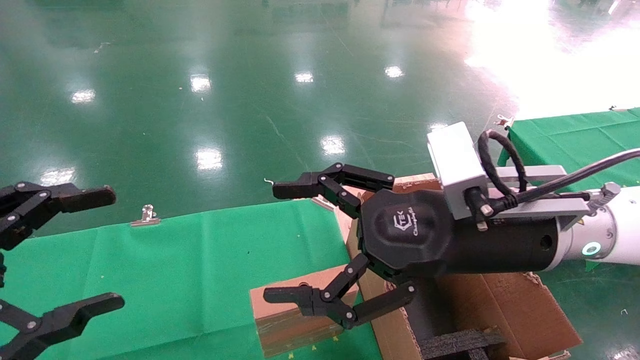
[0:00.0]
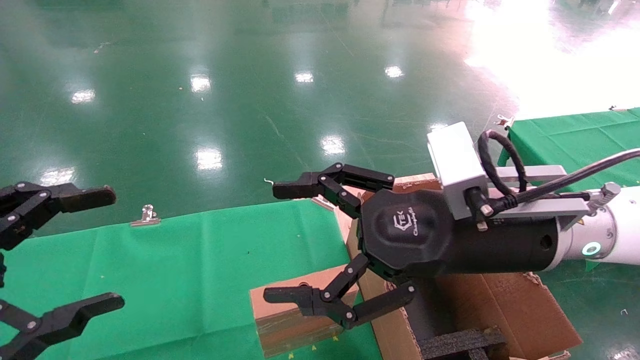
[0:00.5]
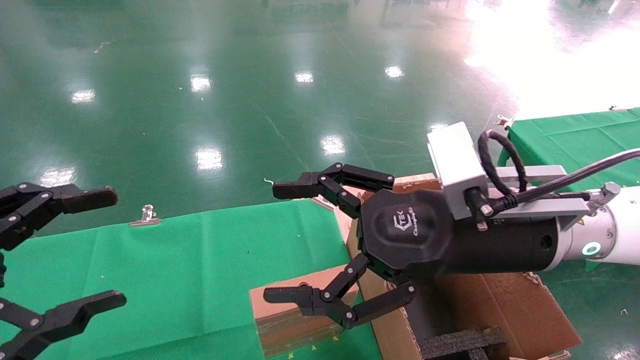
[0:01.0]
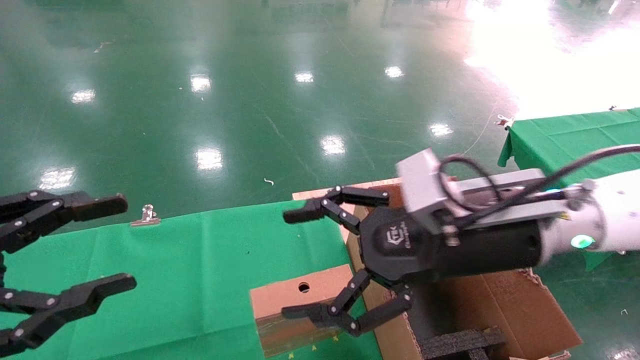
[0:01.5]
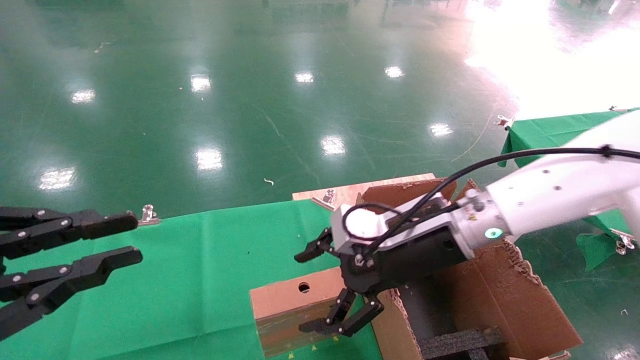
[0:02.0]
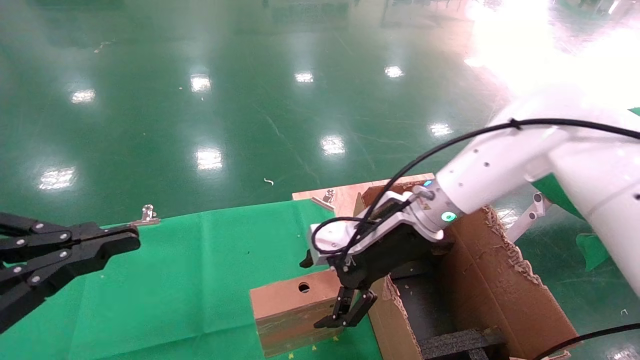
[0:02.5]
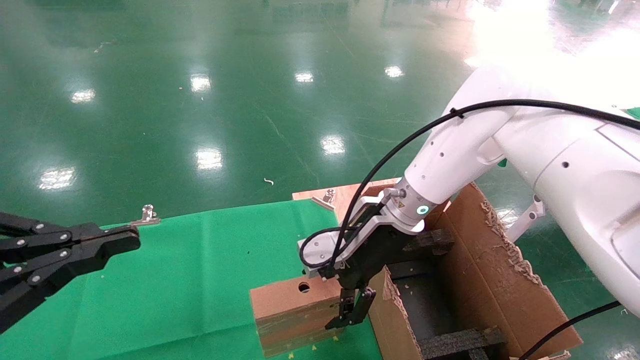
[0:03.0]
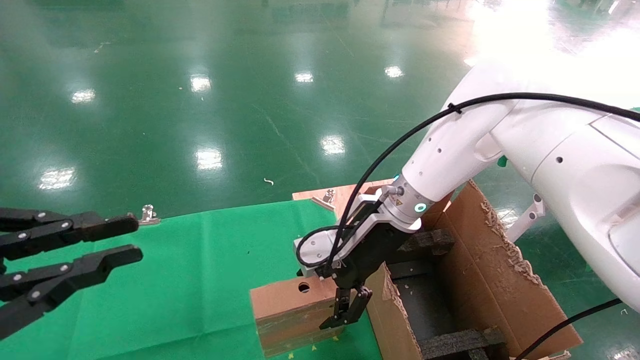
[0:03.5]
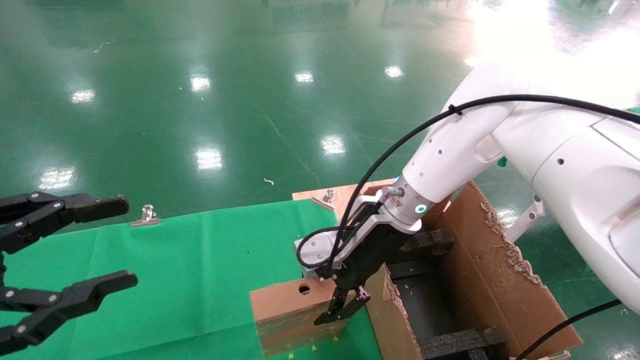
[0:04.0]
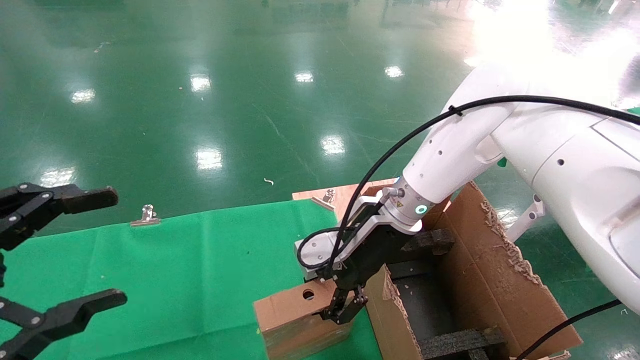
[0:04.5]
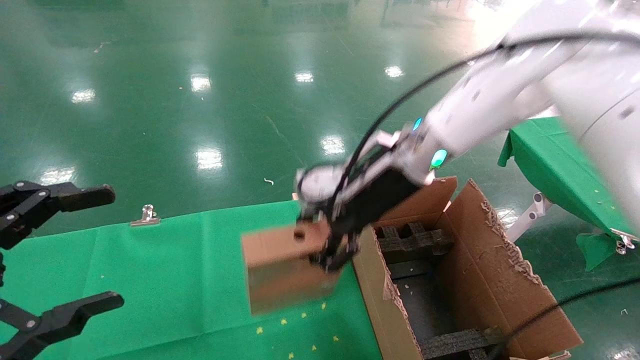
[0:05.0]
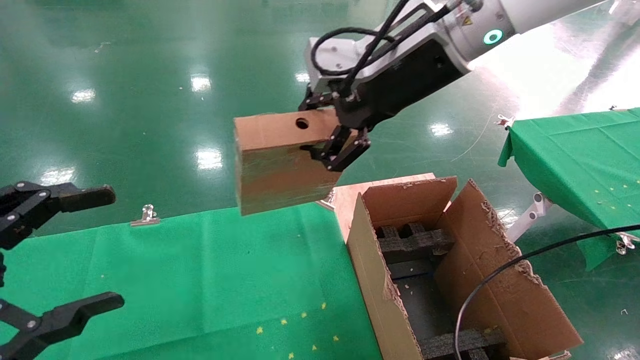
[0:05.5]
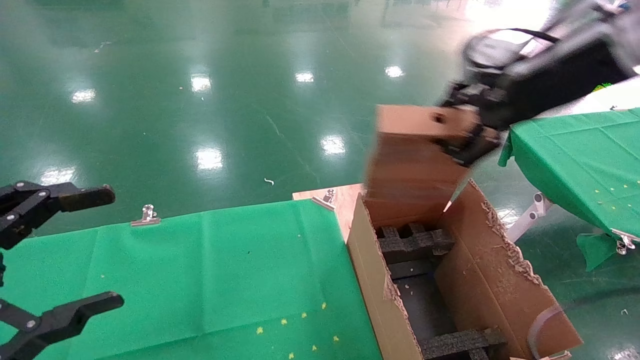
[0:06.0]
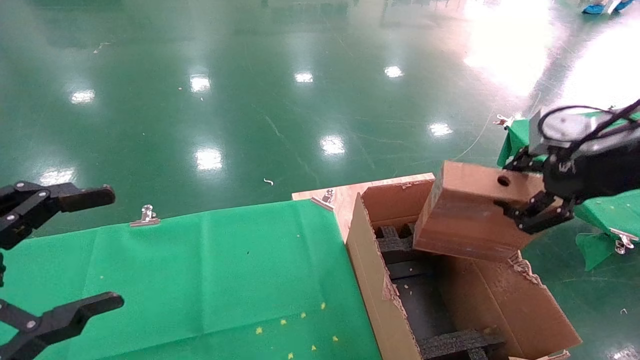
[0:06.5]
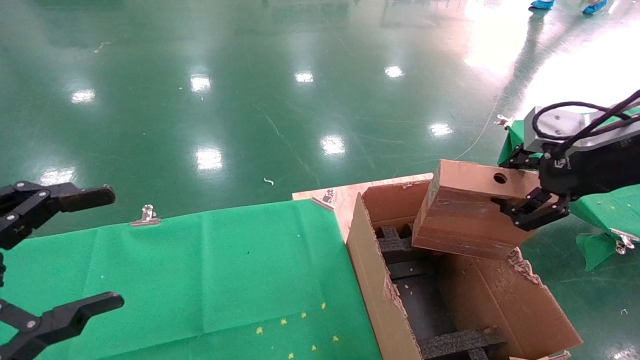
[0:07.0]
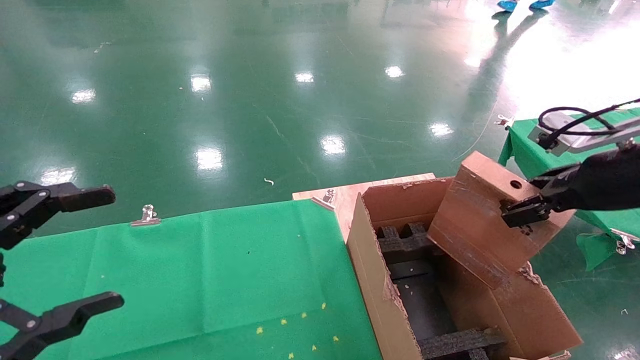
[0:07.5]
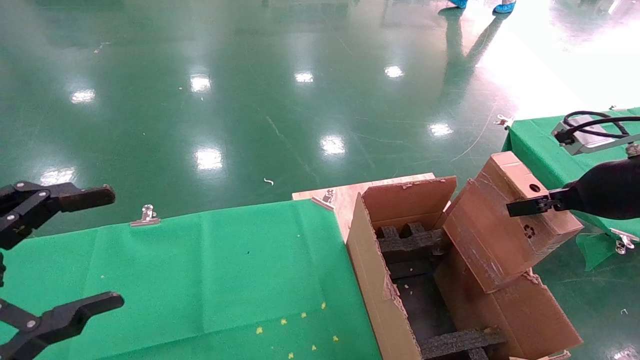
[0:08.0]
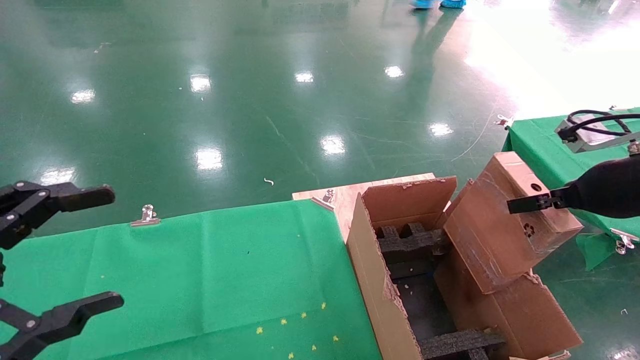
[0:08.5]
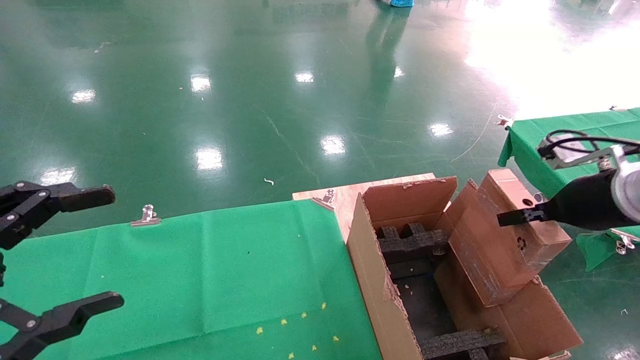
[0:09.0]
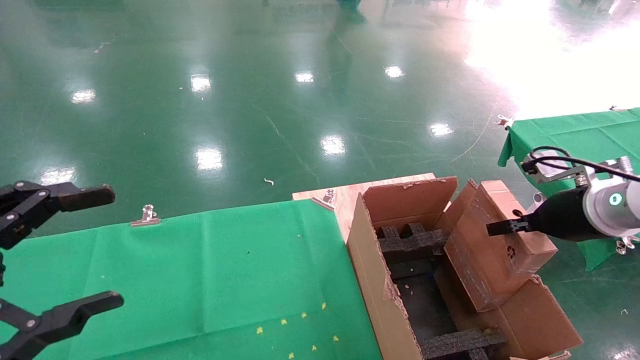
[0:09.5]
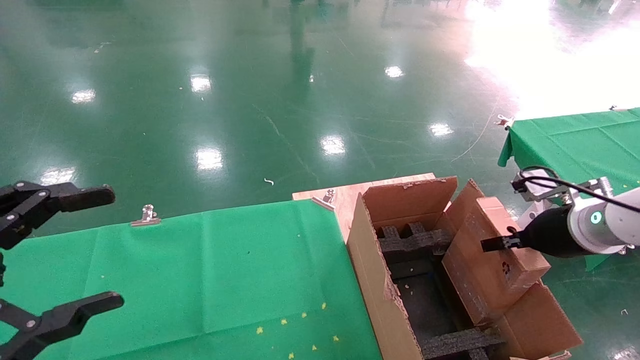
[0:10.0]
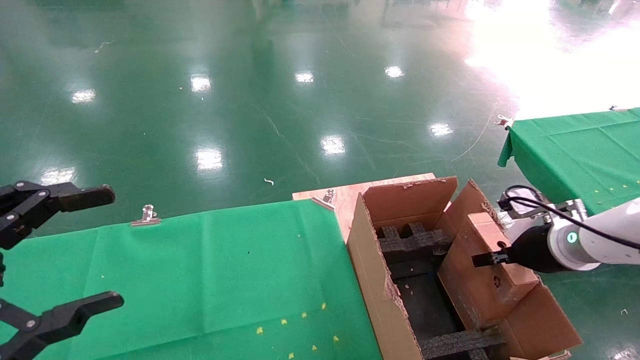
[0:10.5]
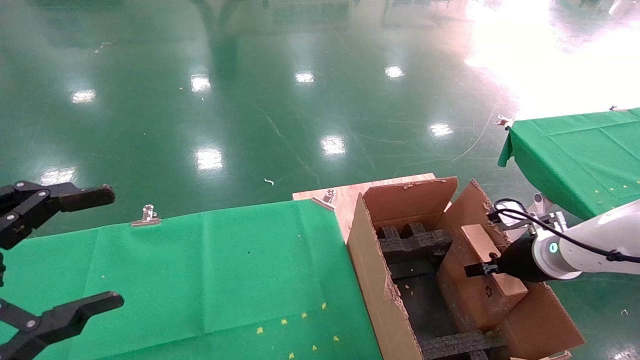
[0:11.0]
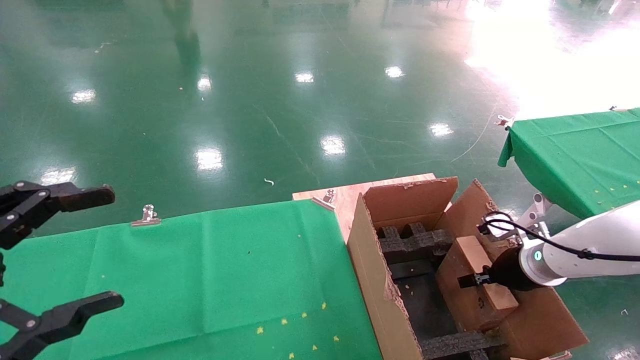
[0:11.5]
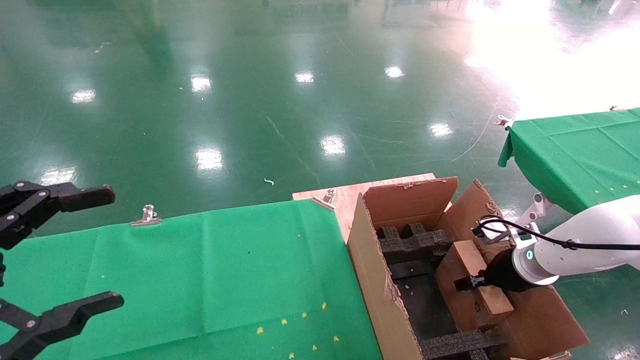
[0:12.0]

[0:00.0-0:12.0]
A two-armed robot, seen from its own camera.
Task of the whole recording: using a robotic arm to pick up a cardboard box and palace it the carton.
Step, 0:01.5 to 0:04.0: Pick up the mouse and the power cord paper box.
0:00.0 to 0:02.0: The left gripper closes up; the right gripper goes approximately 10 cm forward.
0:02.0 to 0:04.0: The right gripper is displaced forward by some 5 cm.
0:04.0 to 0:06.0: The left gripper opens, while the right gripper moves upward, to the right and backward, some 30 cm, and closes up.
0:06.0 to 0:08.0: The right gripper shifts roughly 15 cm downward and to the right.
0:08.0 to 0:10.0: The right gripper goes about 10 cm downward and forward.
0:10.0 to 0:12.0: The right gripper goes some 15 cm downward and forward.

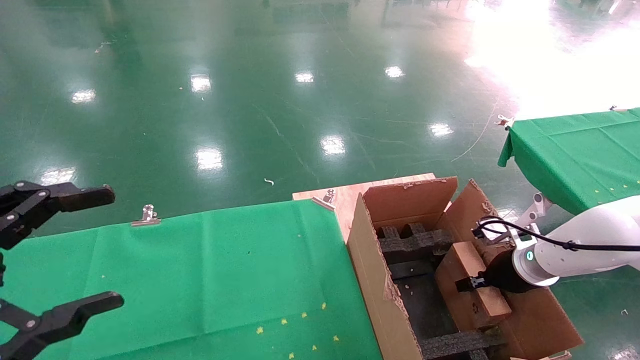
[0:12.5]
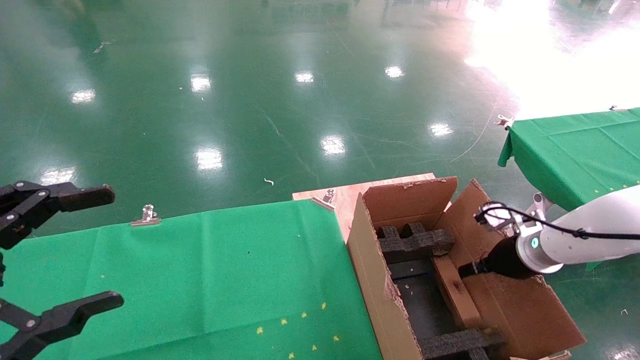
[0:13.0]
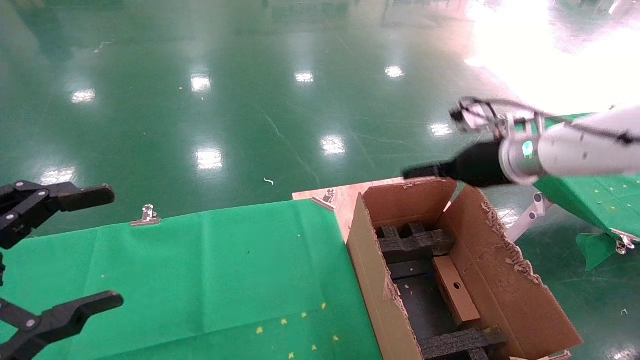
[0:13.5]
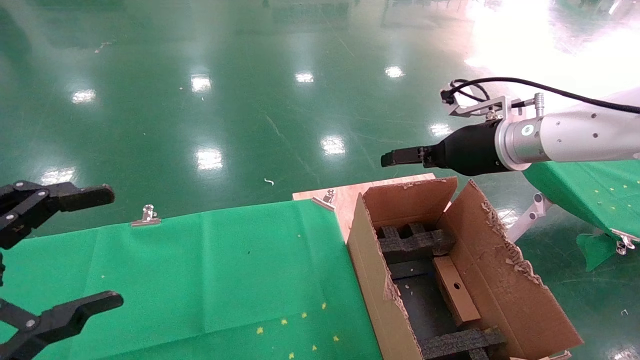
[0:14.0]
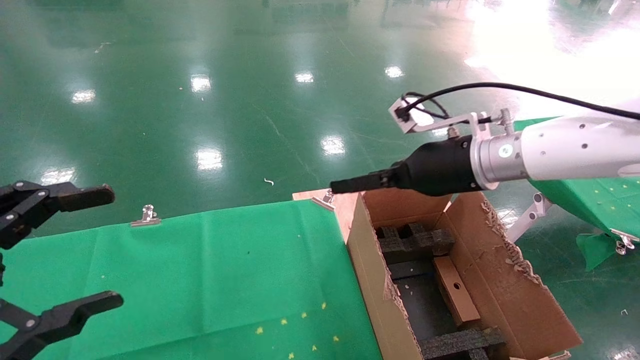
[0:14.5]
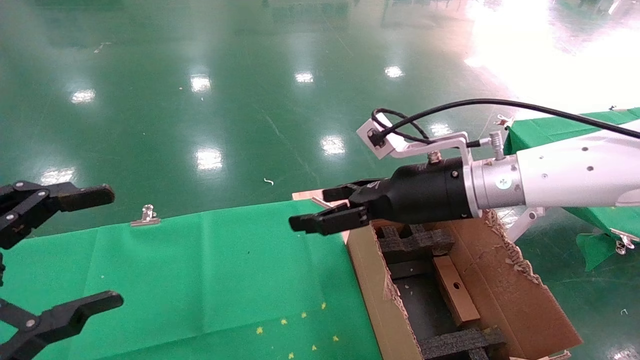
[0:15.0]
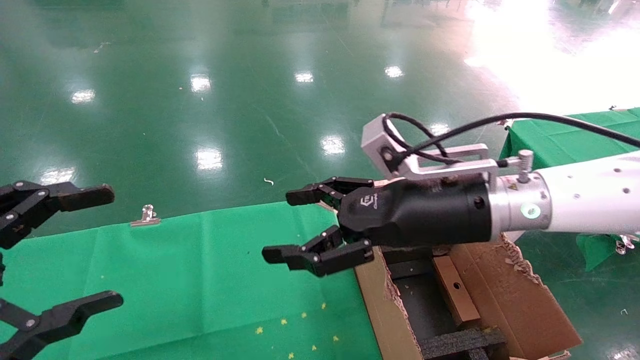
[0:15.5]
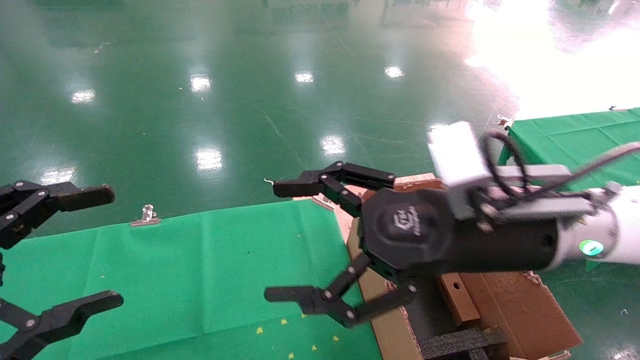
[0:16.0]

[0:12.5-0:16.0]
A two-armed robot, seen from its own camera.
Task of the whole recording: using a robotic arm to pick up a cardboard box and palace it the carton.
0:12.5 to 0:14.5: The right gripper heads upward and to the left, covering about 25 cm, and opens up.
0:14.5 to 0:16.0: The right gripper travels backward by roughly 10 cm.

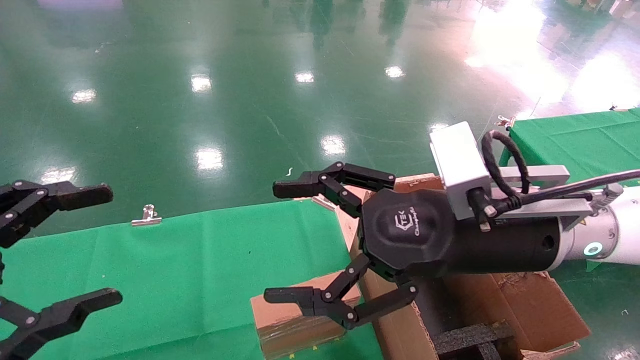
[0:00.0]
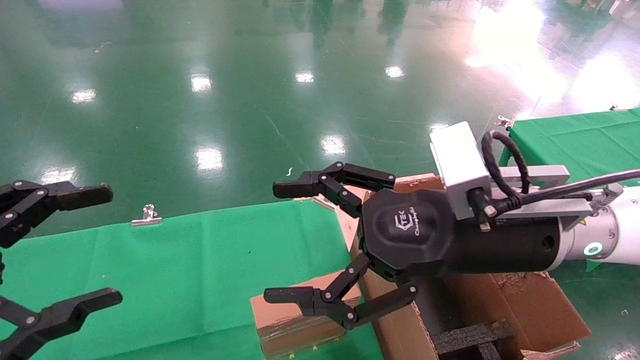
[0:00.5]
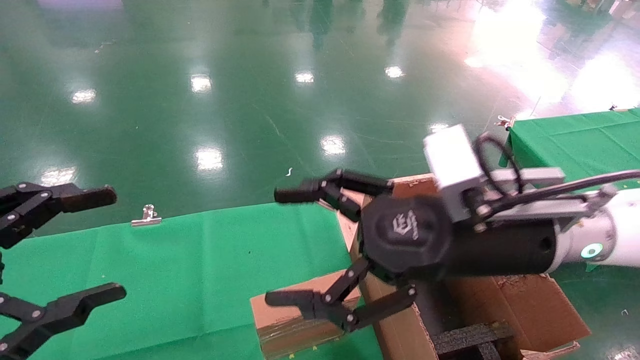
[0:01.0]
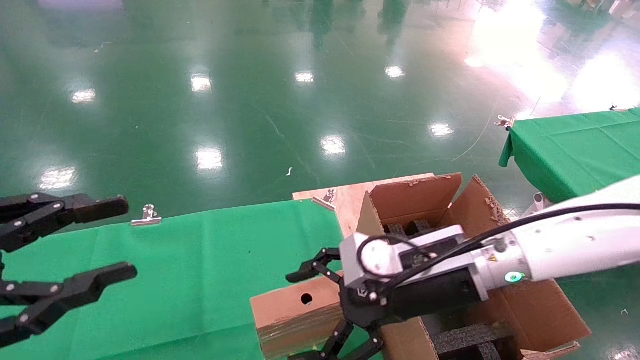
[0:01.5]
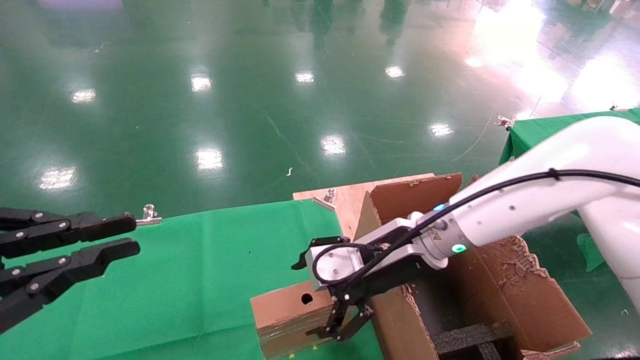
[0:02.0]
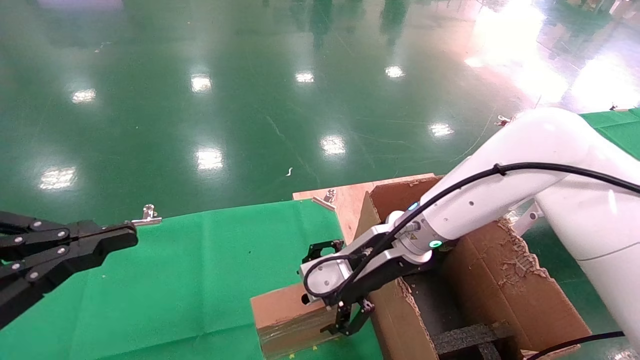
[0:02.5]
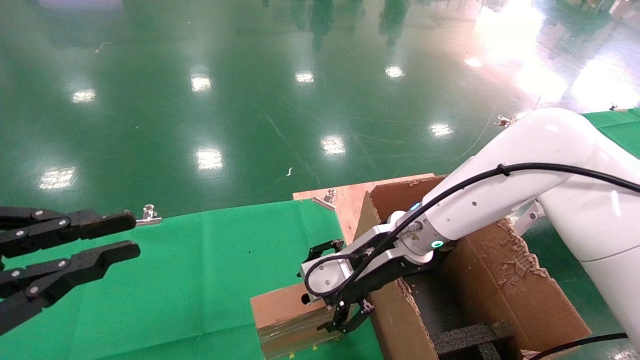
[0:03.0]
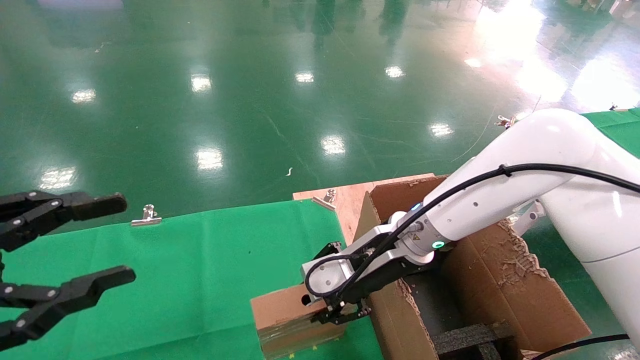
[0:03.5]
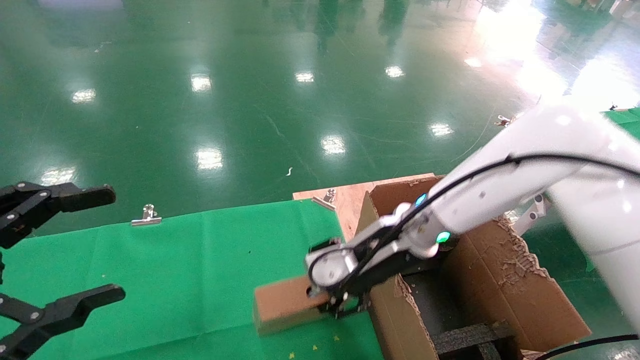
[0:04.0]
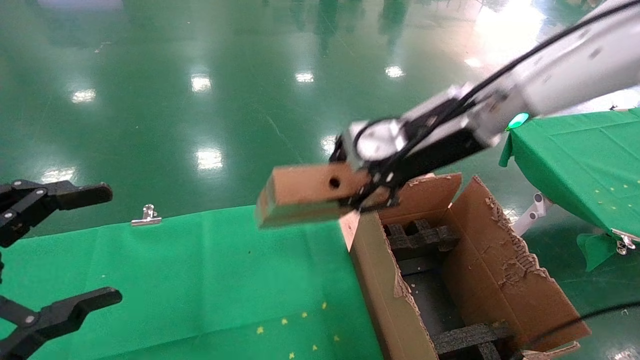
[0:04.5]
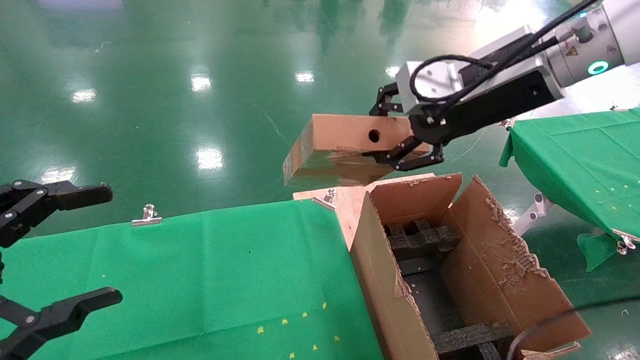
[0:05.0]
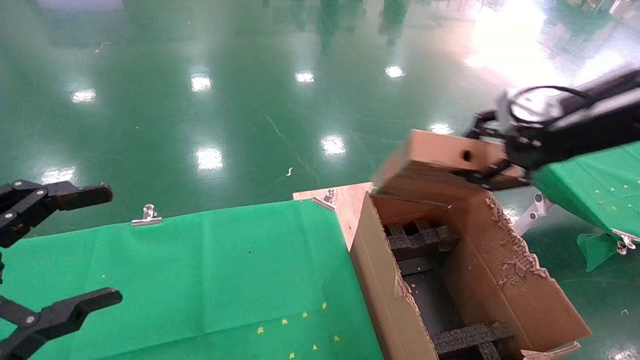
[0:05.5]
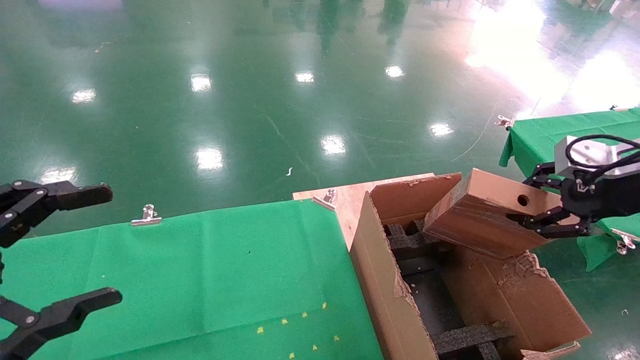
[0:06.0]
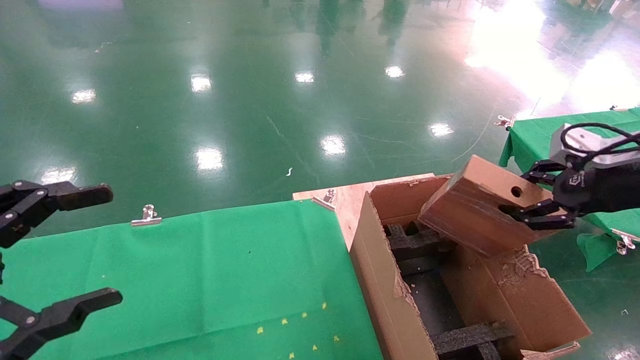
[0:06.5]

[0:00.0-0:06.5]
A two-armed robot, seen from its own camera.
Task of the whole recording: using a robotic arm to pick up a cardboard box and palace it the carton.
Step, 0:01.5 to 0:03.5: Pick up the mouse and the power cord paper box.
0:00.0 to 0:02.0: The right gripper travels forward and downward by some 10 cm. The left gripper closes its fingers.
0:02.0 to 0:04.5: The right gripper heads upward, covering about 15 cm, and closes. Meanwhile the left gripper opens.
0:04.5 to 0:06.5: The right gripper goes some 25 cm to the right.
